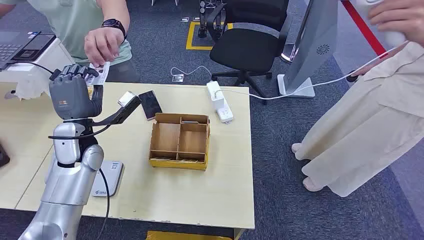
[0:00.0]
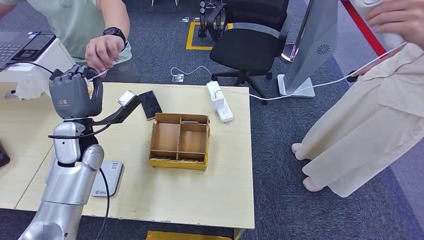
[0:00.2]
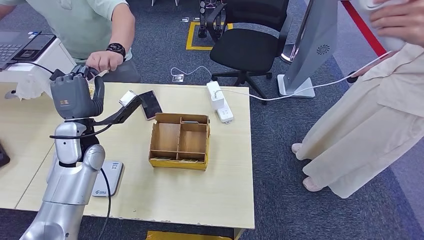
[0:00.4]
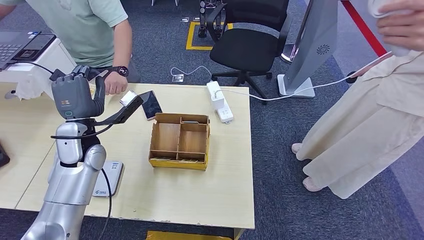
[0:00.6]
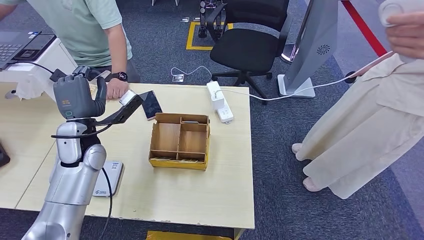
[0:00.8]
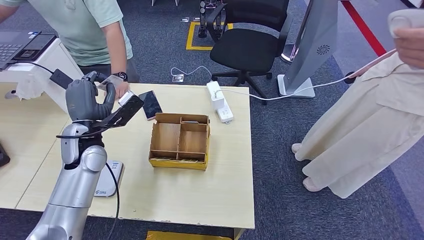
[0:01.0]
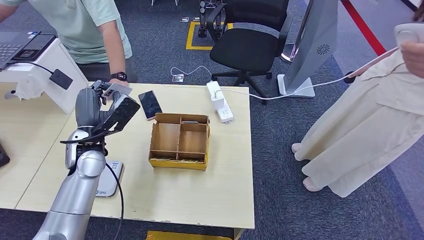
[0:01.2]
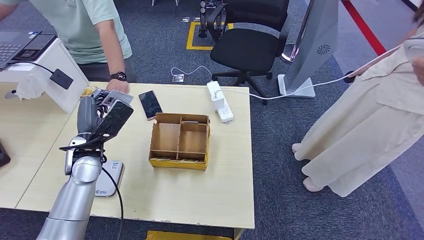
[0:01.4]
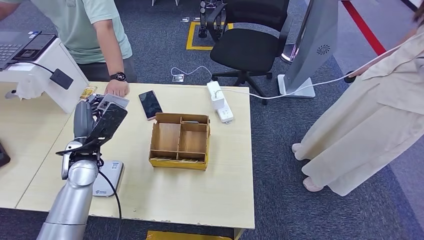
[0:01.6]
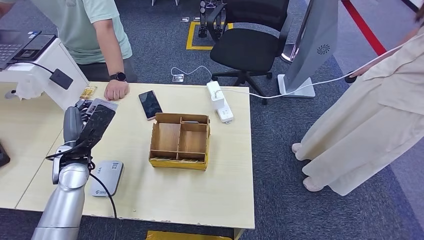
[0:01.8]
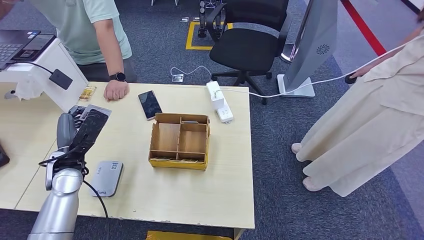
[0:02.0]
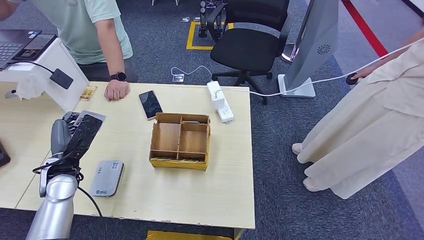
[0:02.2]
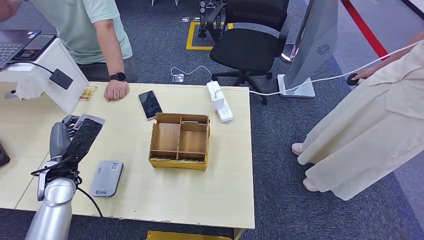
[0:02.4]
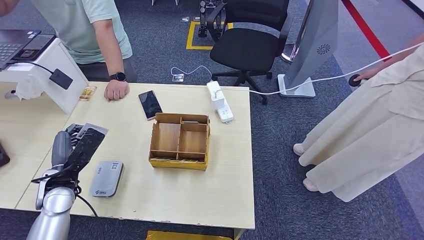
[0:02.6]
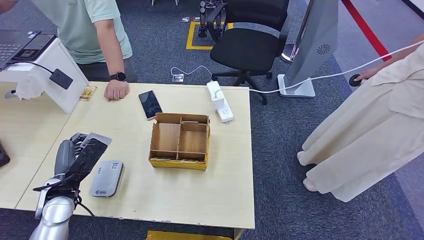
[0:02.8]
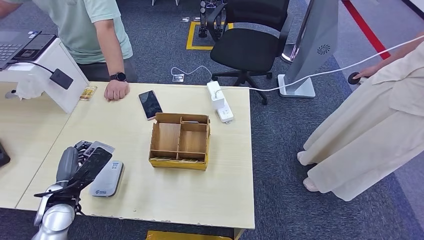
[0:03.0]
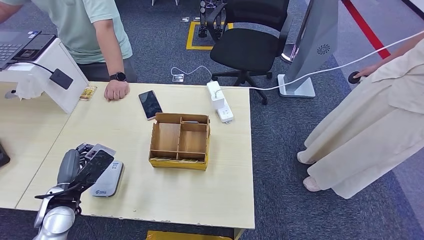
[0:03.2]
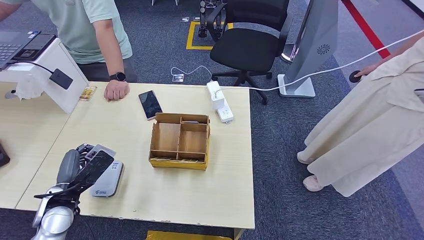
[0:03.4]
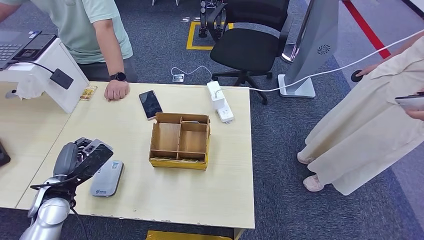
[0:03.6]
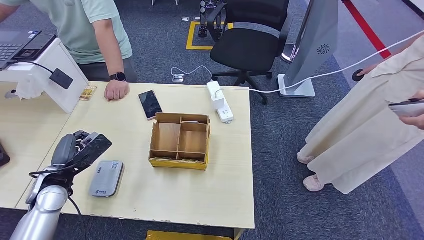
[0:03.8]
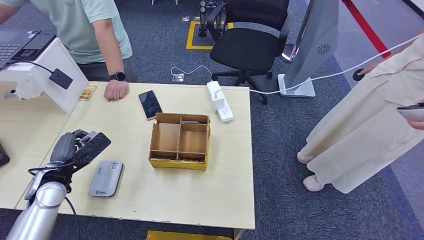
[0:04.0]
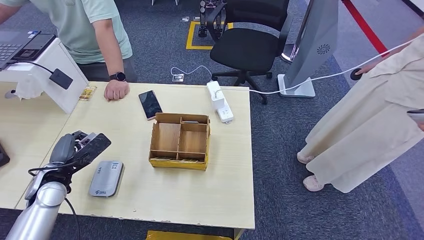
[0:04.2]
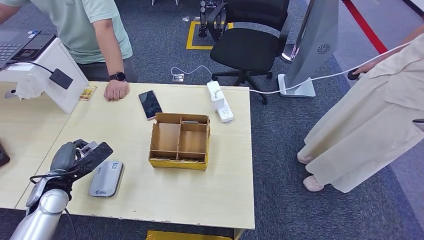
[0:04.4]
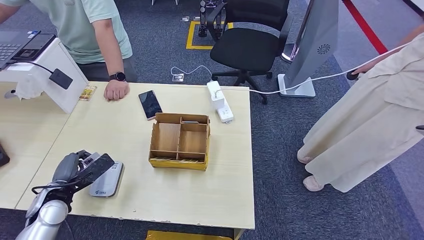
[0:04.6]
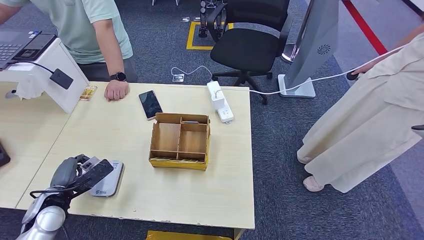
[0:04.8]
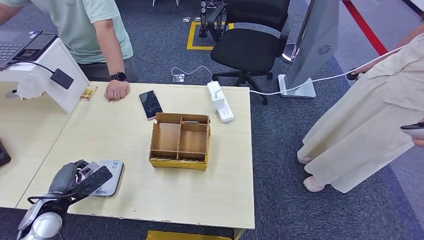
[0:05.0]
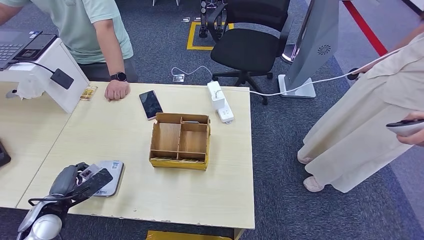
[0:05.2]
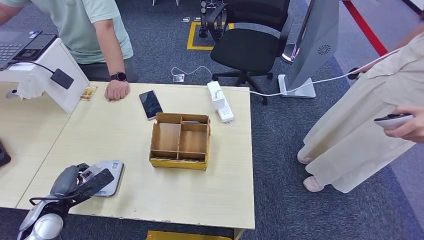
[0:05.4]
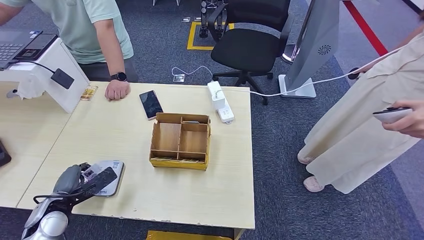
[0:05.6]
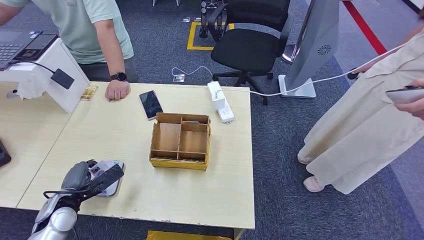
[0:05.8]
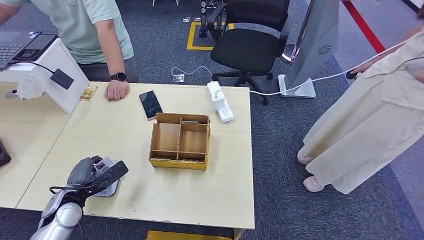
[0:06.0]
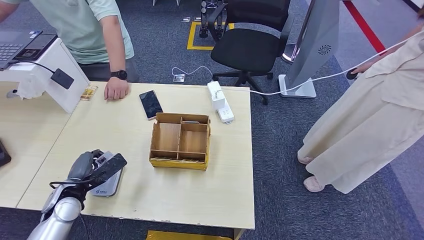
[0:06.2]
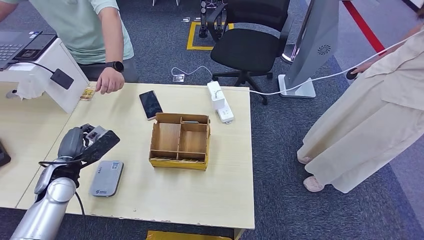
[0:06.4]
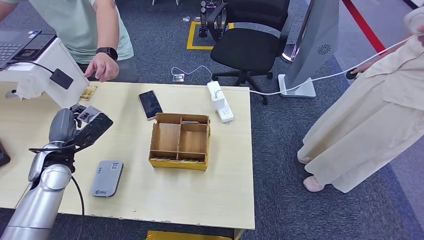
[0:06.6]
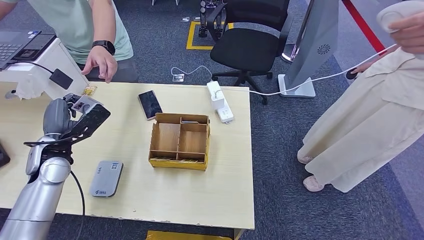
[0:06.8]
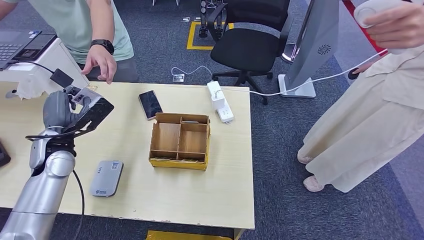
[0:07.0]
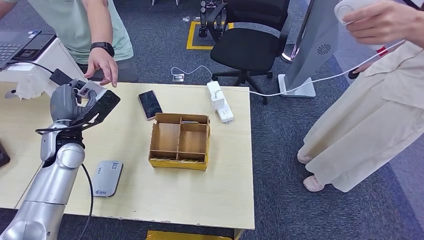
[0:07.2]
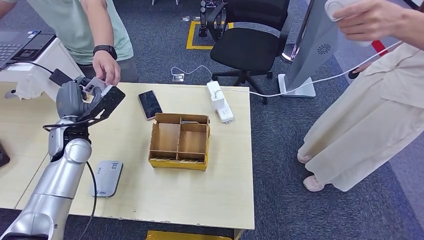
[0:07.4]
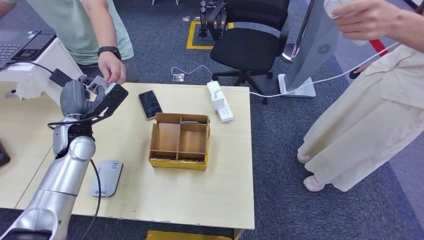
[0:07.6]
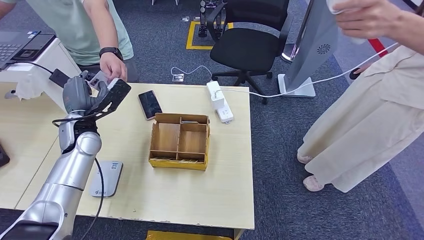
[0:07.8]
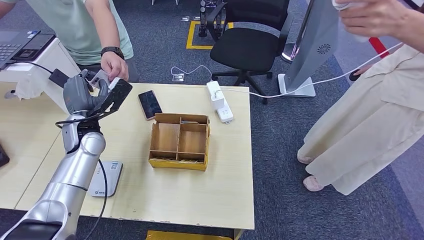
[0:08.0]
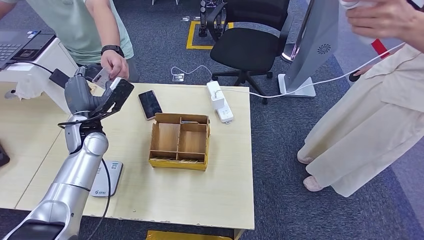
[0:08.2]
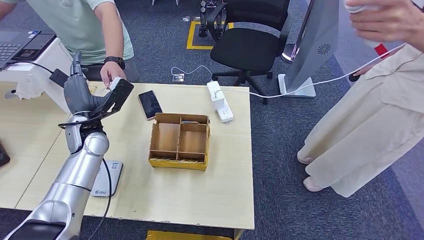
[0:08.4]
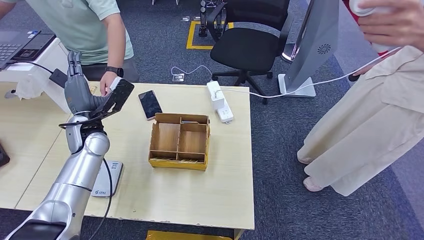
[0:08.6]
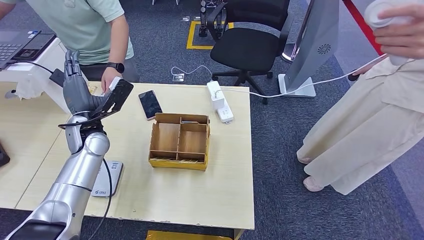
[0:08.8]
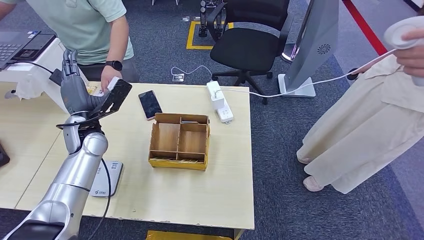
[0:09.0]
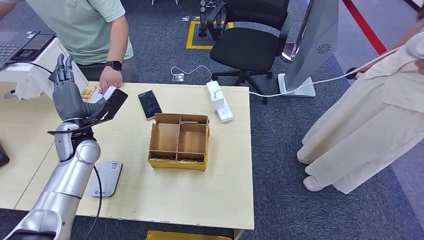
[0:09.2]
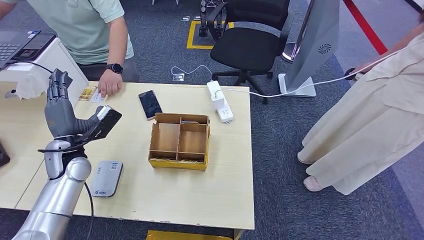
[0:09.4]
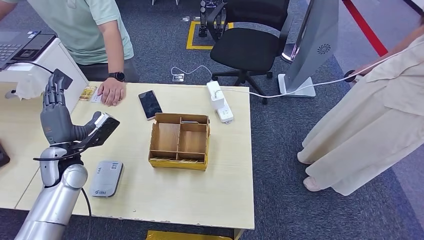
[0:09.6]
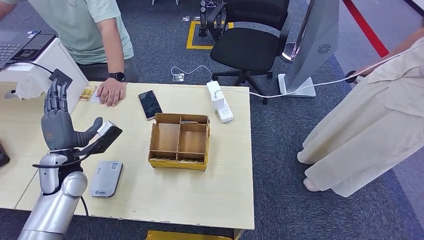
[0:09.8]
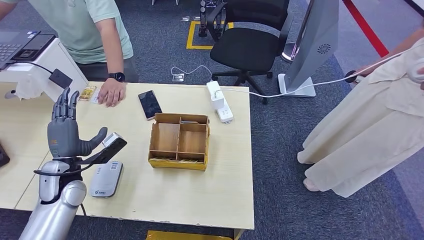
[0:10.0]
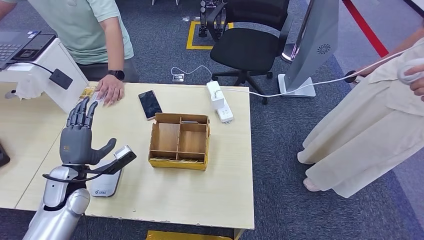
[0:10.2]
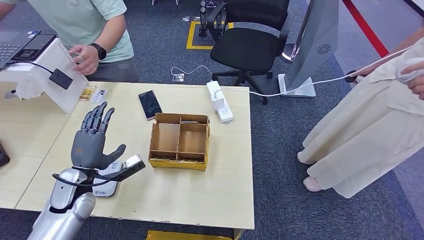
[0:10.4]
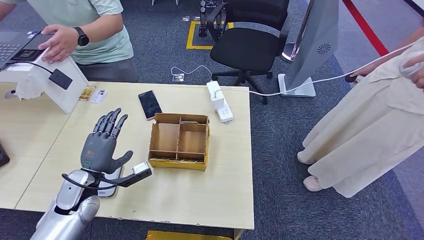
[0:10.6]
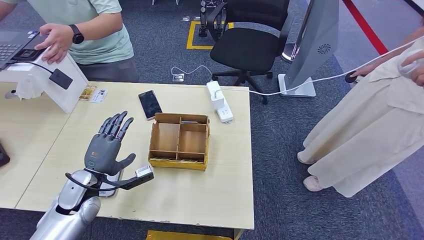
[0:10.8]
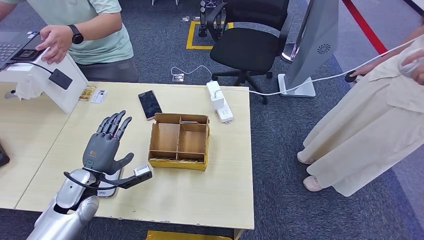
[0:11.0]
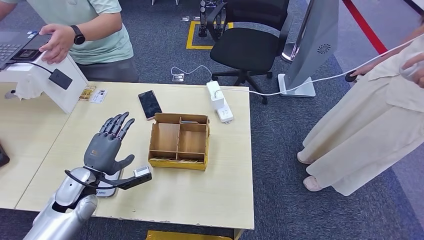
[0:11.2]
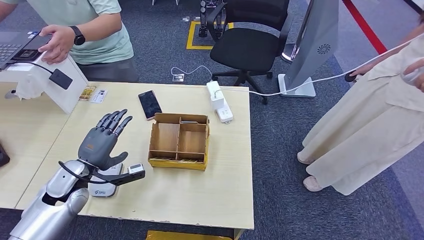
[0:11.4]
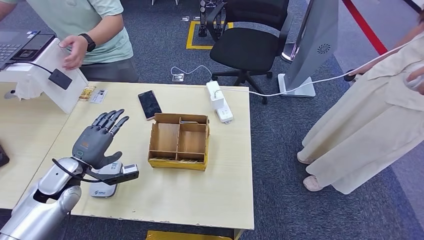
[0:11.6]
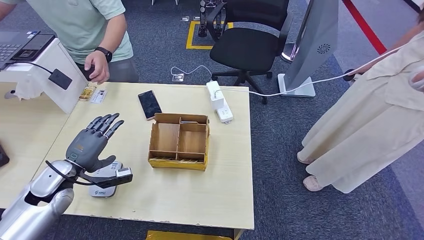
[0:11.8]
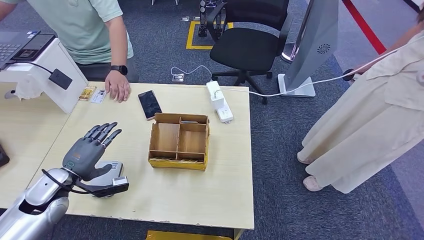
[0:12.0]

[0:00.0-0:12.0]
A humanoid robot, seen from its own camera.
Step, 0:00.0 to 0:00.6: Take the ID card from the person's hand.
Step, 0:01.0 to 0:06.8: Place the ID card on the card reader.
Step, 0:07.2 to 0:09.6: Hand the ID card to the person.
0:01.6 to 0:03.0: The left hand moves backward, downward and to the left, about 10 cm.
0:03.0 to 0:04.4: The left hand moves approximately 5 cm.
0:04.4 to 0:06.0: The left hand changes place by roughly 5 cm.
0:06.0 to 0:07.6: The left hand travels upward and forward by about 20 cm.
0:07.6 to 0:09.0: The hands stay close to where they were, moving slightly.
0:09.0 to 0:10.4: The left hand travels backward and downward by about 15 cm.
0:10.4 to 0:12.0: The left hand travels to the left by roughly 5 cm.

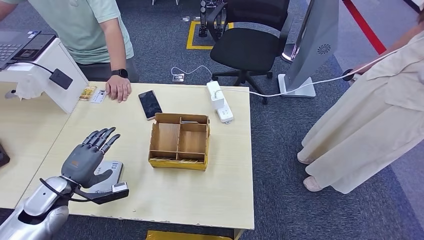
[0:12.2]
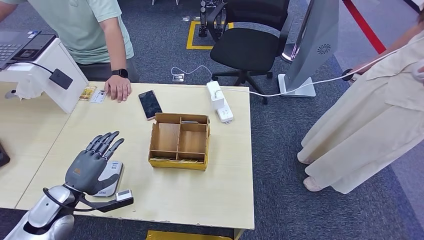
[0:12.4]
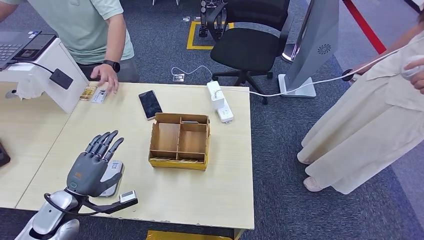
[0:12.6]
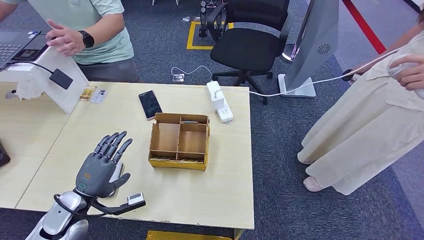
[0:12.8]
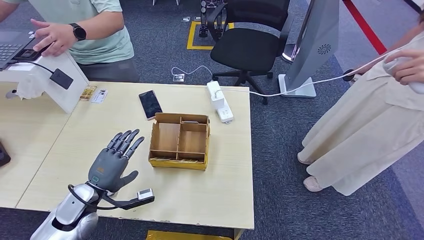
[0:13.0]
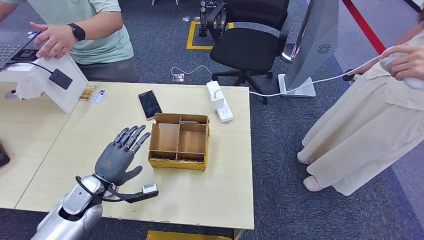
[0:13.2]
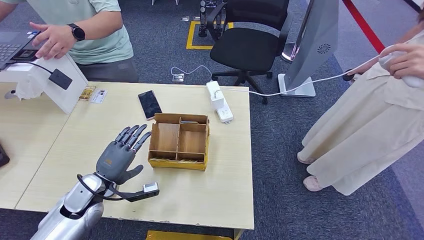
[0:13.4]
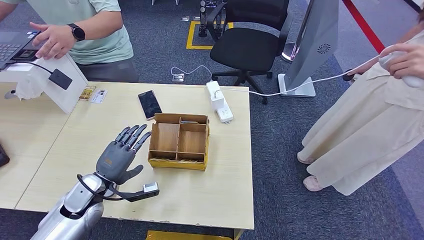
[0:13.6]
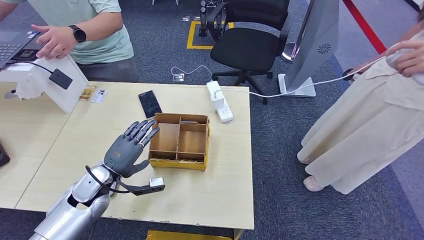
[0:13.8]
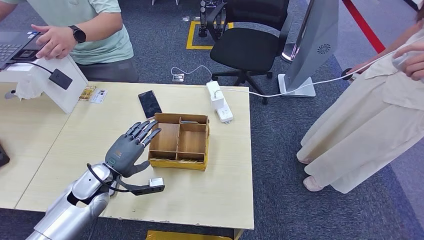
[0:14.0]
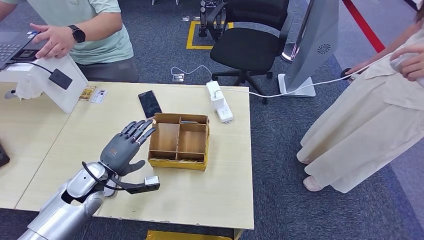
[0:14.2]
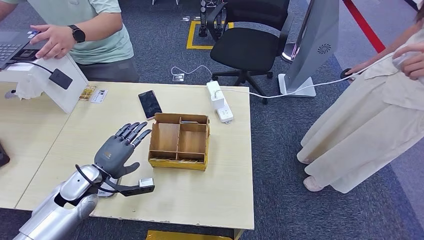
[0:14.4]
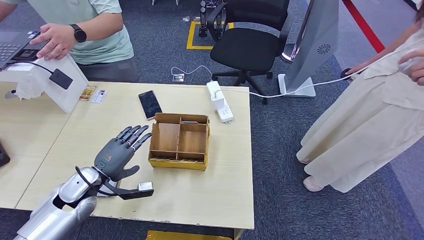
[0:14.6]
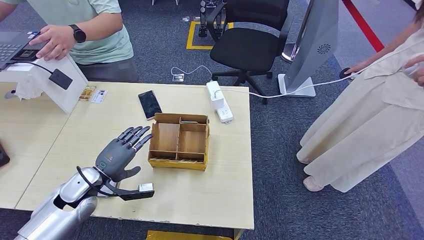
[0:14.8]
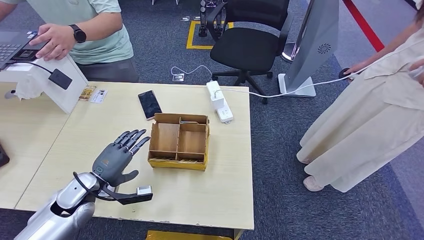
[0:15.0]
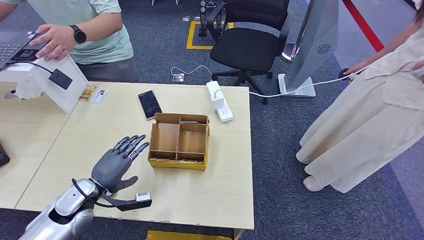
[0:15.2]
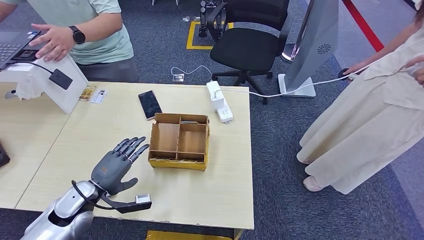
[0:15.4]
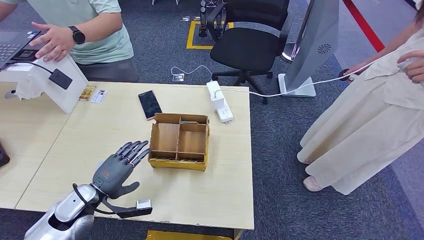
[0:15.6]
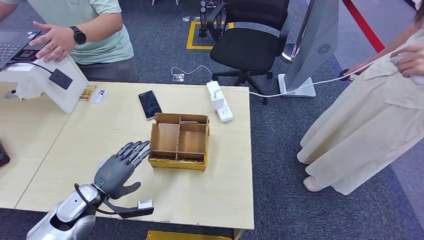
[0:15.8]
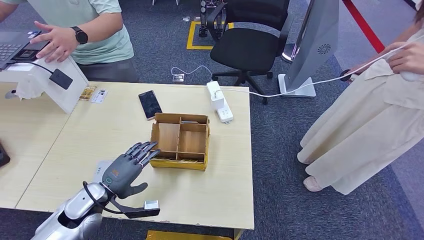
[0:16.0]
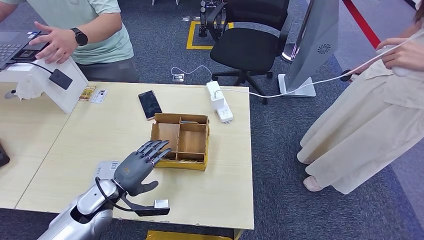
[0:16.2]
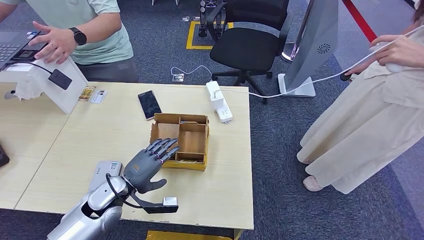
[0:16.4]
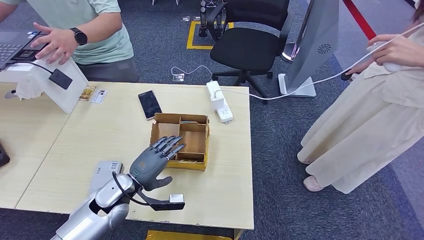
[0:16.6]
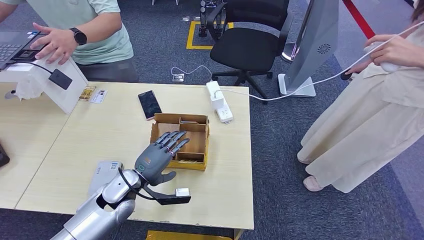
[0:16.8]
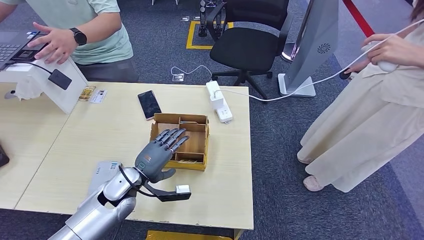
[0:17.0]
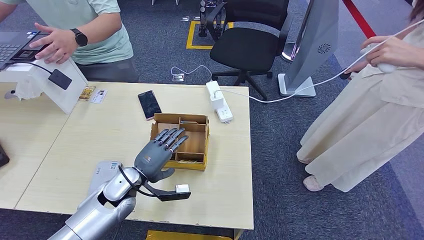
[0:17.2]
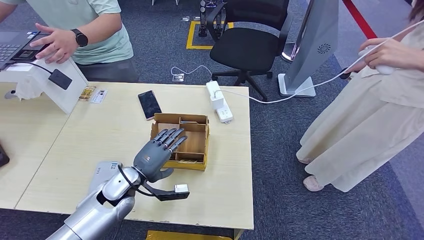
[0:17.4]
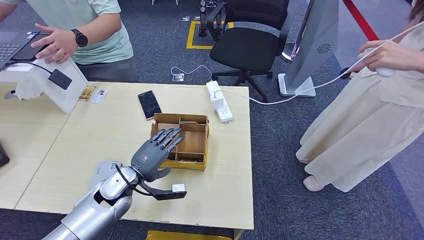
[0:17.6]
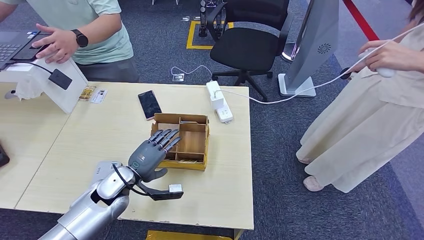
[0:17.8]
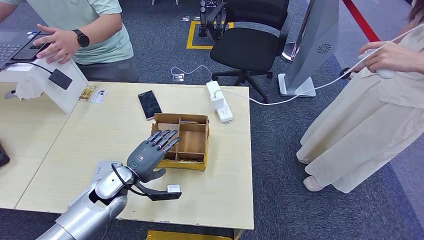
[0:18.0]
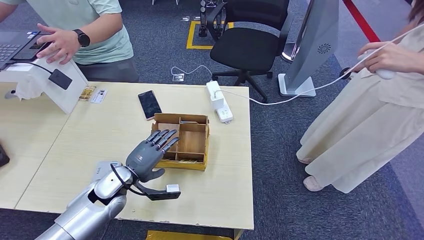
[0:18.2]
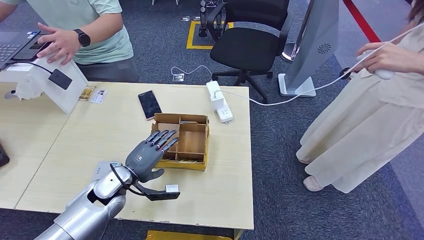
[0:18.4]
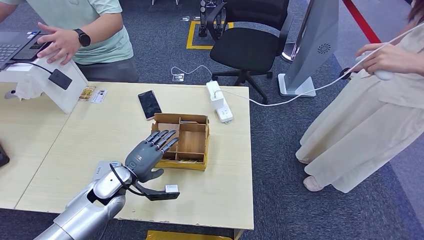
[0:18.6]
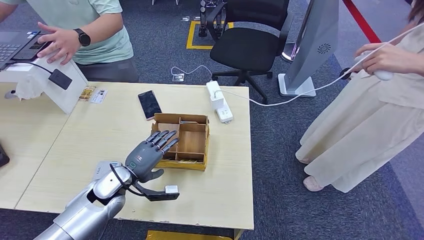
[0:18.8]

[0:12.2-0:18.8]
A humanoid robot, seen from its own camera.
0:12.2 to 0:13.8: The left hand heads to the right, covering roughly 10 cm.
0:13.8 to 0:15.4: The hands stay close to where they were, moving slightly.
0:15.4 to 0:17.2: The left hand shifts approximately 10 cm to the right.
0:17.2 to 0:18.8: The hands stay close to where they were, moving slightly.
